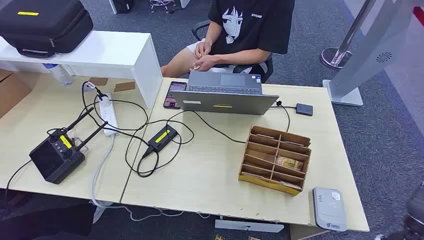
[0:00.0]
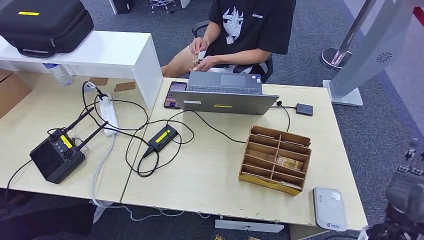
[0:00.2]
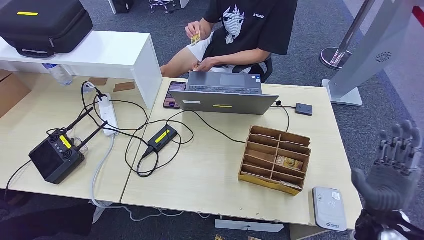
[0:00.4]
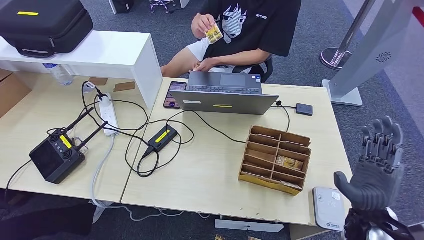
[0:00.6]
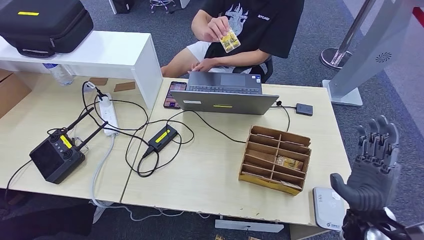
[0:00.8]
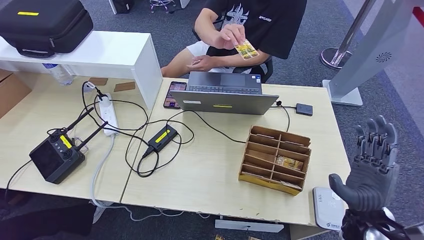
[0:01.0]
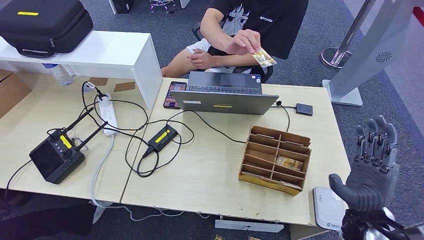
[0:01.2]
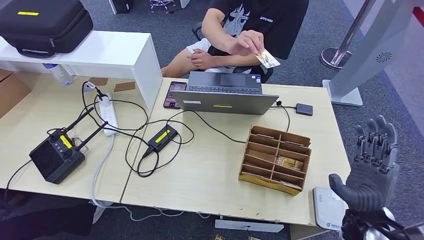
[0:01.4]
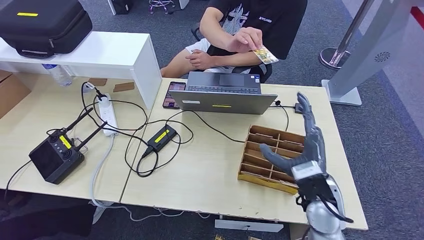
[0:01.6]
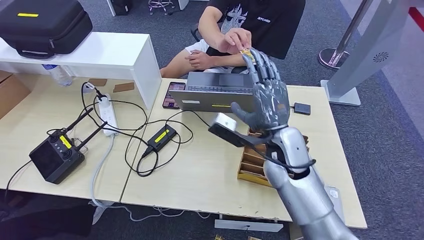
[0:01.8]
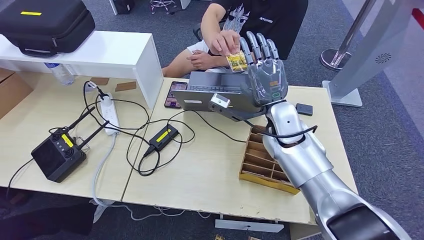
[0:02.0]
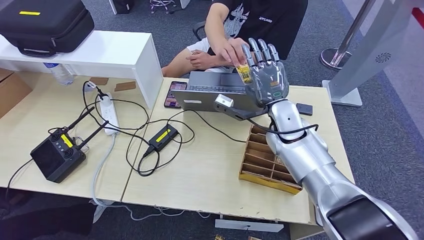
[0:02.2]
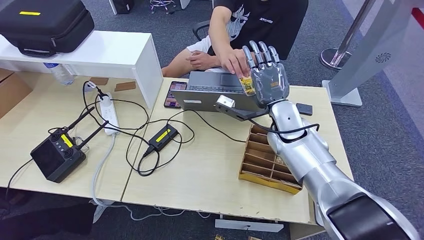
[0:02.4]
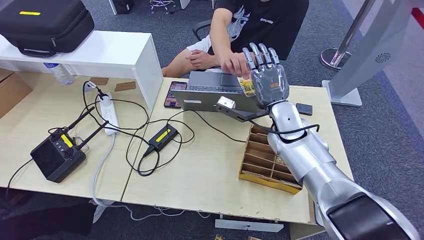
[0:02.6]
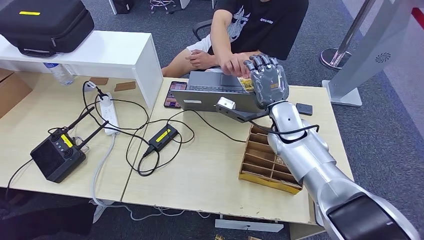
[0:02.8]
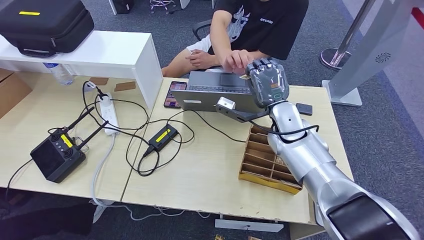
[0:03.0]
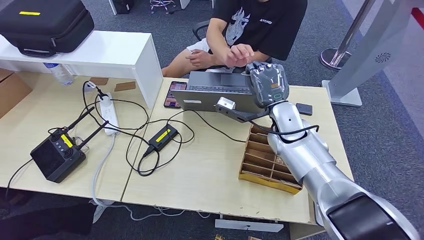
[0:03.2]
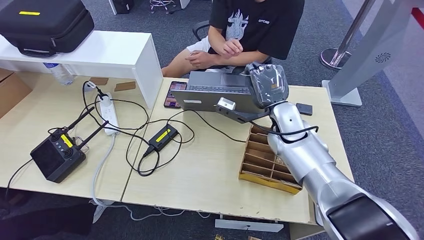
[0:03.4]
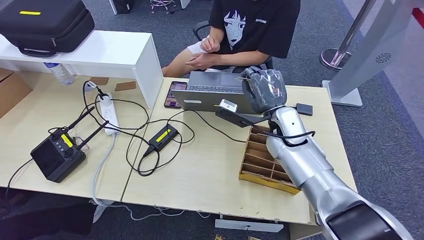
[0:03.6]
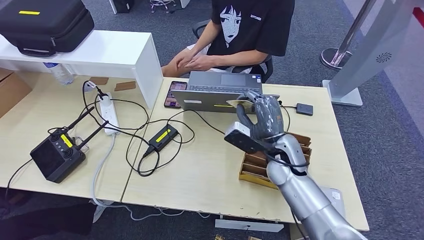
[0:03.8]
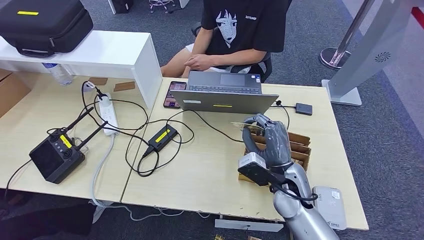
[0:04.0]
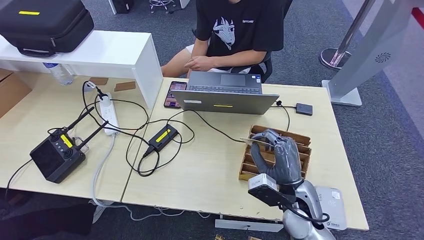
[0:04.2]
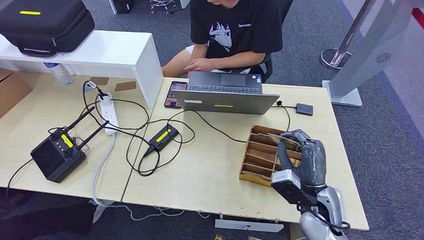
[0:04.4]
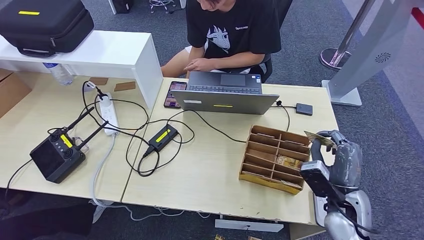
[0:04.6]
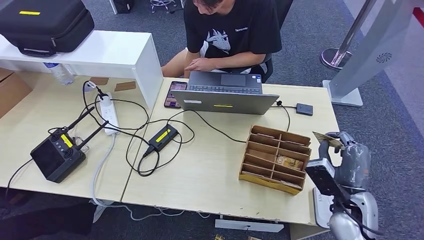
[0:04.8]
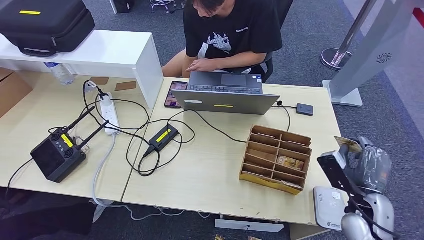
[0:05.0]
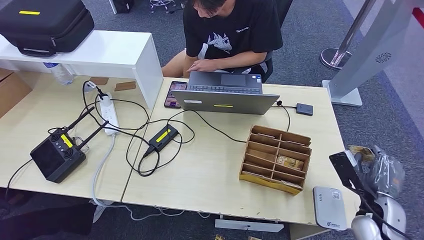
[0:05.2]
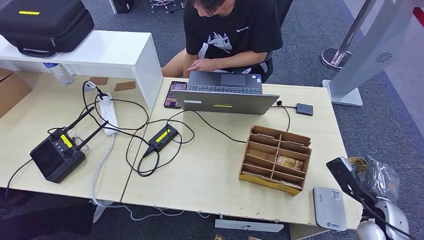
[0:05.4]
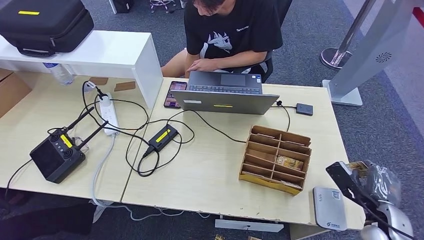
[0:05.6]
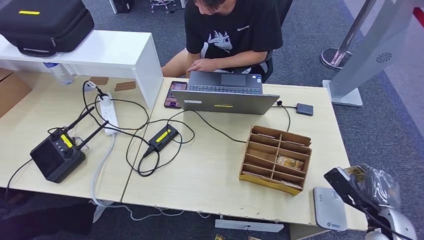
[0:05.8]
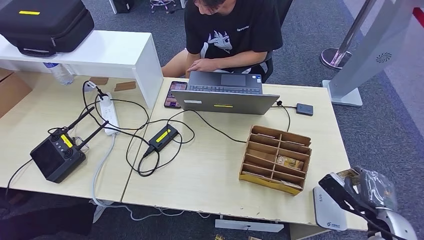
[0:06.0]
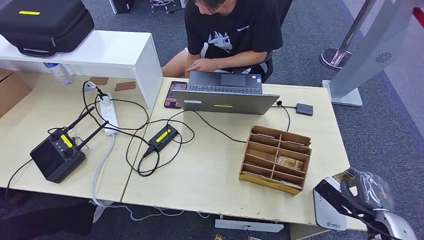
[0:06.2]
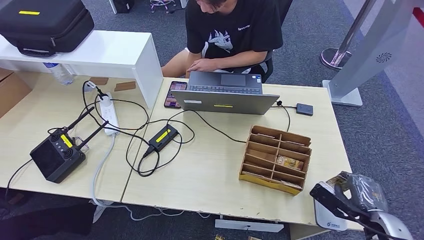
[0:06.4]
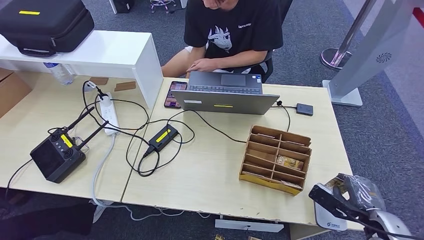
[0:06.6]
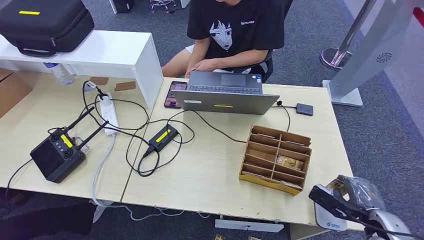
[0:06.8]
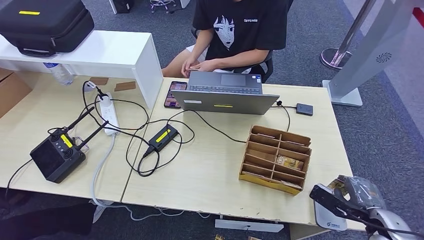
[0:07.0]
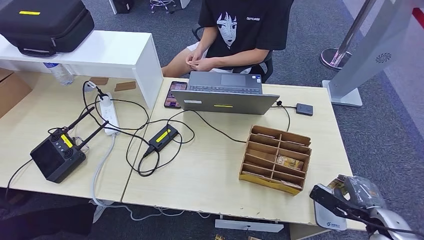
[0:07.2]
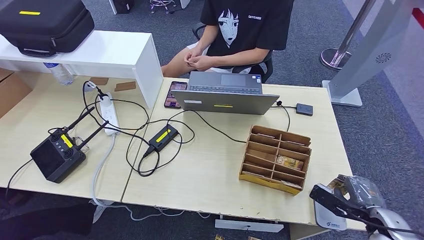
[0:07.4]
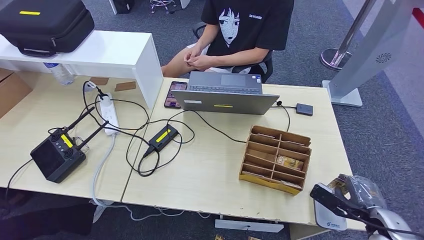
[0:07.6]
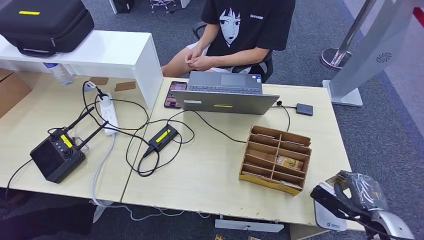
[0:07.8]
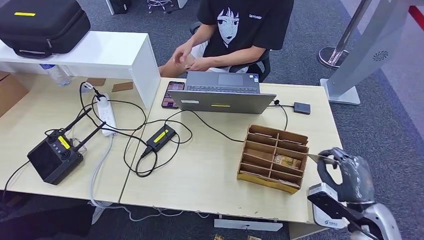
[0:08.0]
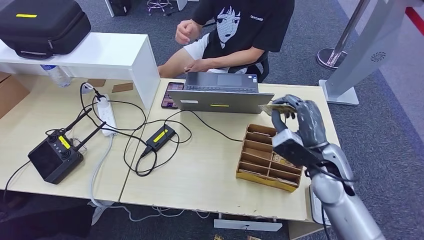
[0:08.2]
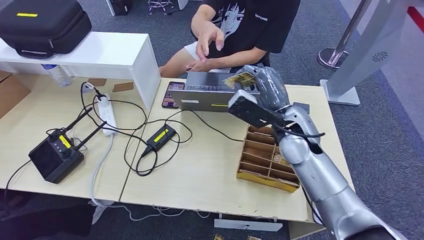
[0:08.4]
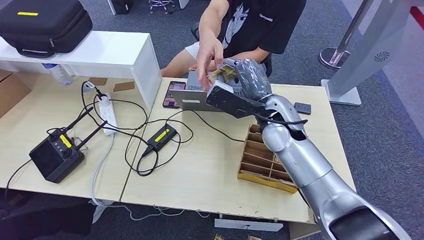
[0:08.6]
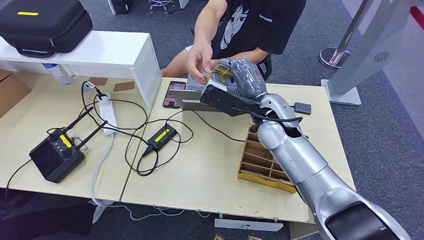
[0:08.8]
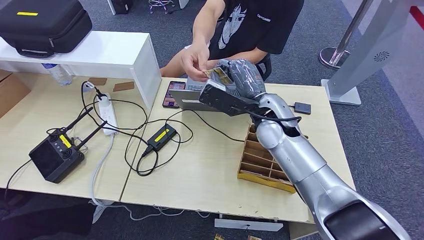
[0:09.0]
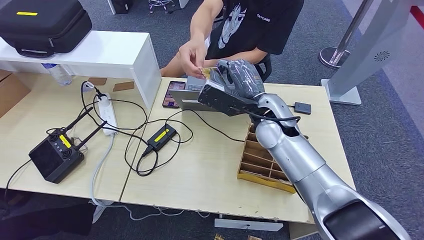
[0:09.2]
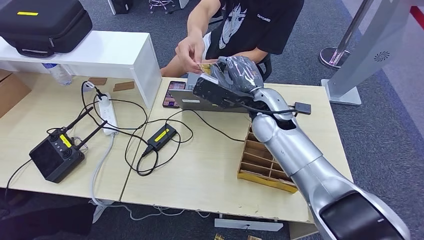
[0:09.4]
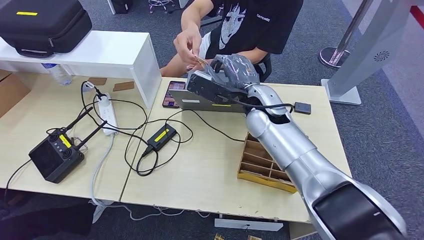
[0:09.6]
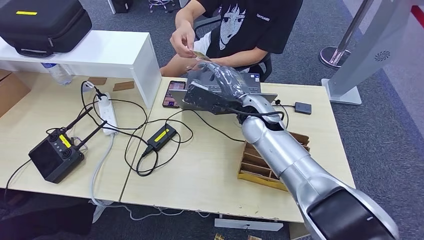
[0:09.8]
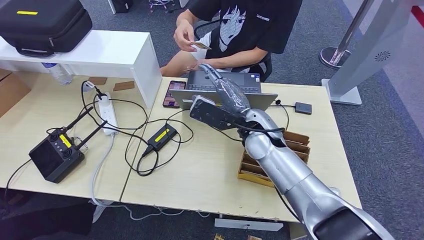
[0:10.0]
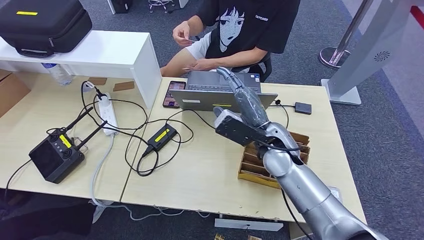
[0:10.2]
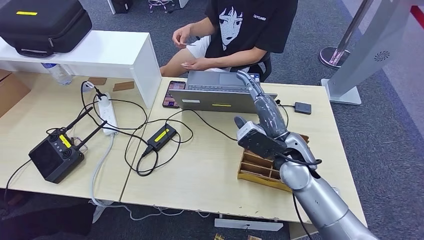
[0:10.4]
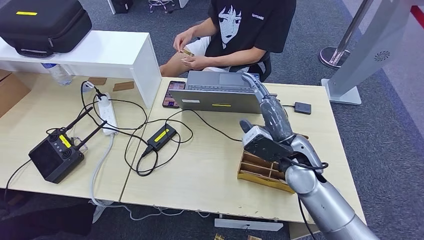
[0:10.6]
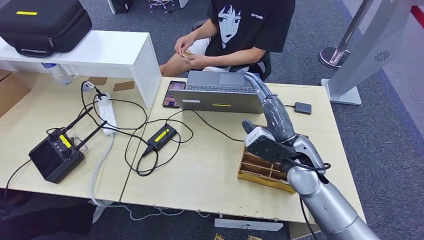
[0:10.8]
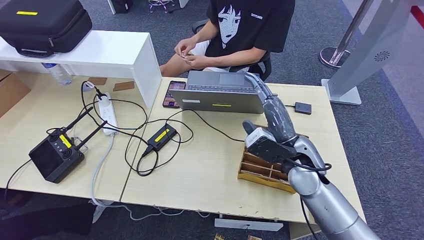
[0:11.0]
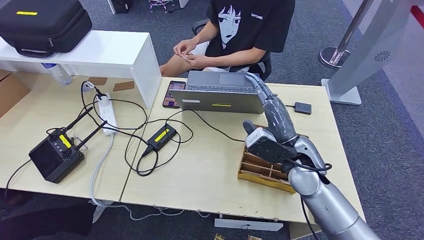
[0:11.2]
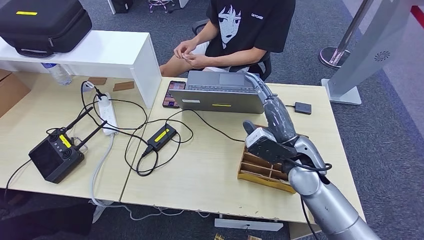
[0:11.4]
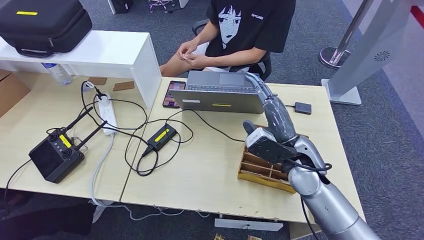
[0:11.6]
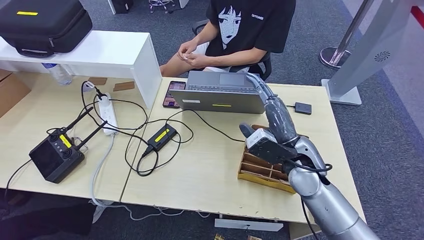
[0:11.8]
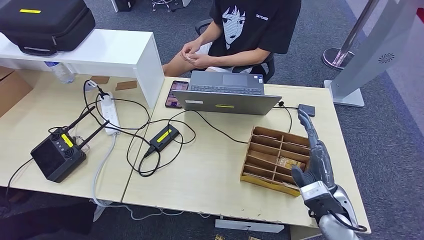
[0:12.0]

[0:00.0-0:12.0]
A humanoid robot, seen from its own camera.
Step, 0:00.0 to 0:04.0: Take the ID card from the person's hand.
Step, 0:04.2 to 0:05.6: Place the ID card on the card reader.
Step, 0:05.8 to 0:10.4: Hand the ID card to the person.
0:01.6 to 0:03.0: The right hand heads forward, to the left and upward, covering approximately 20 cm.
0:03.0 to 0:04.4: The right hand moves backward, downward and to the right, roughly 20 cm.
0:04.4 to 0:06.0: The right hand shifts approximately 15 cm to the right.
0:06.0 to 0:07.6: The hands move only a little.
0:09.0 to 0:10.4: The right hand goes roughly 10 cm downward, to the right and backward.

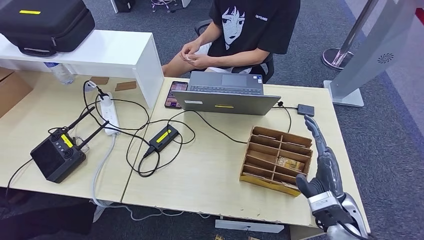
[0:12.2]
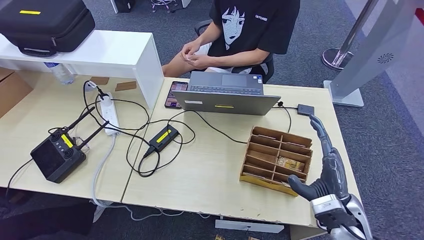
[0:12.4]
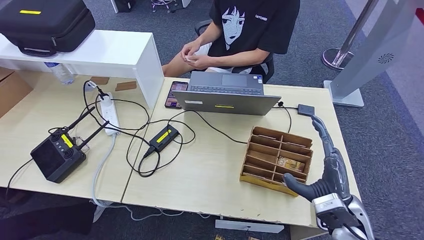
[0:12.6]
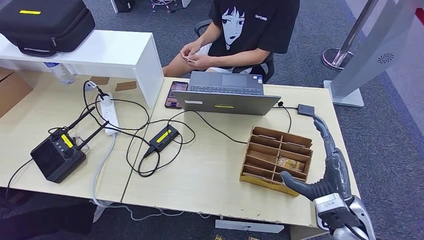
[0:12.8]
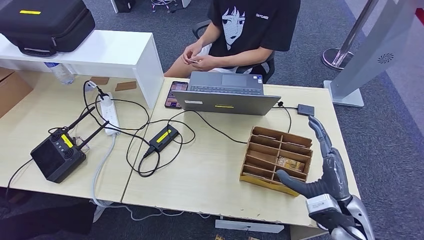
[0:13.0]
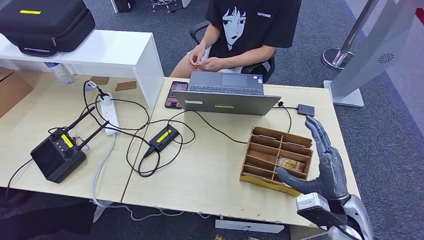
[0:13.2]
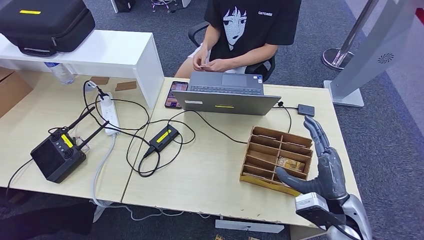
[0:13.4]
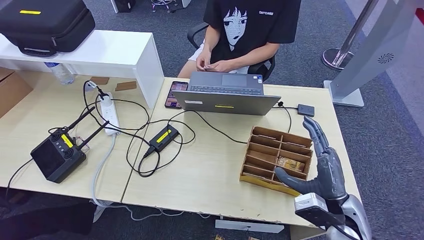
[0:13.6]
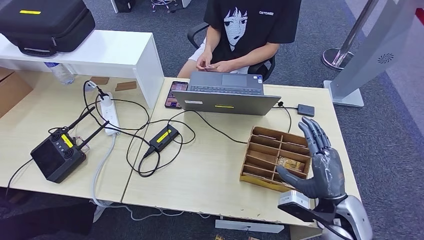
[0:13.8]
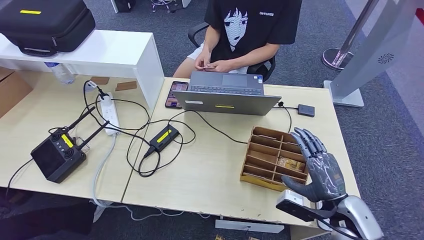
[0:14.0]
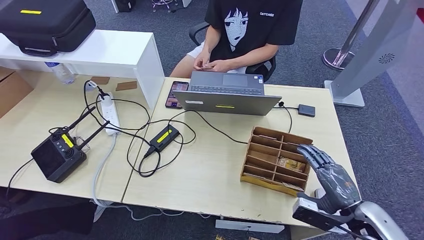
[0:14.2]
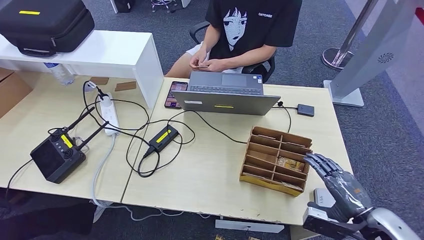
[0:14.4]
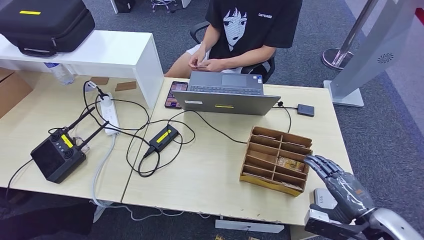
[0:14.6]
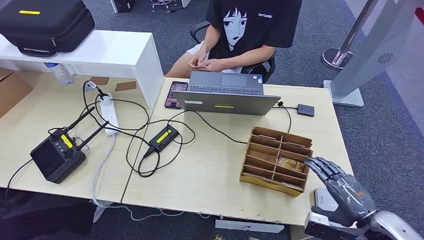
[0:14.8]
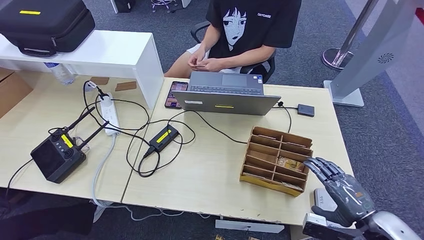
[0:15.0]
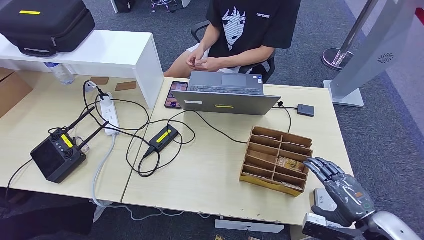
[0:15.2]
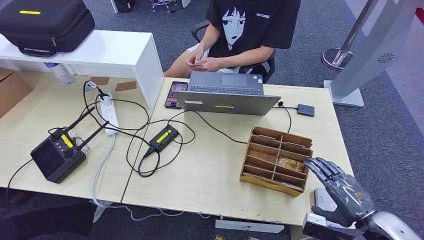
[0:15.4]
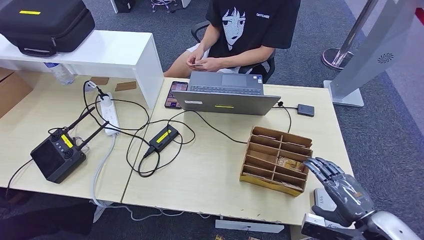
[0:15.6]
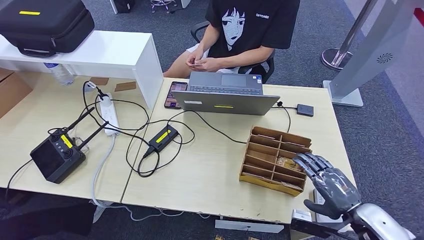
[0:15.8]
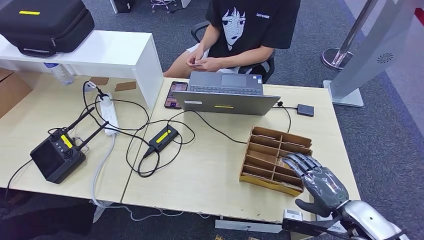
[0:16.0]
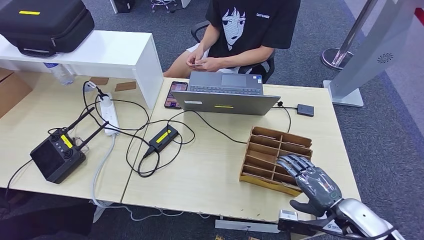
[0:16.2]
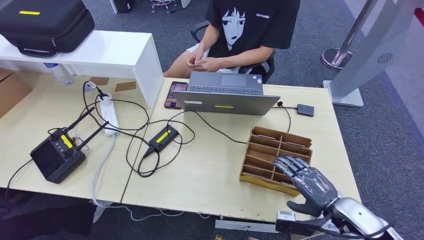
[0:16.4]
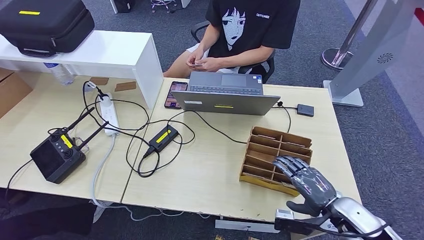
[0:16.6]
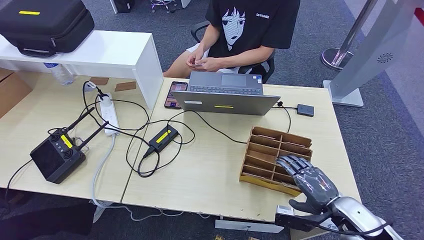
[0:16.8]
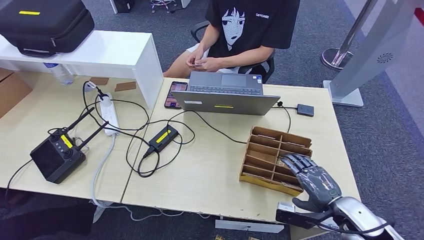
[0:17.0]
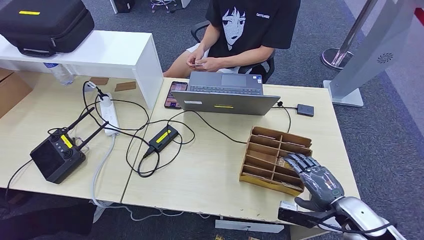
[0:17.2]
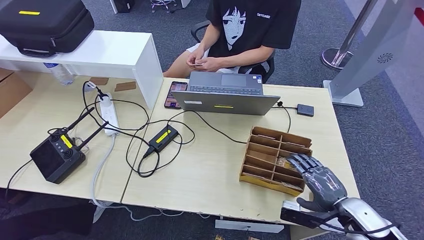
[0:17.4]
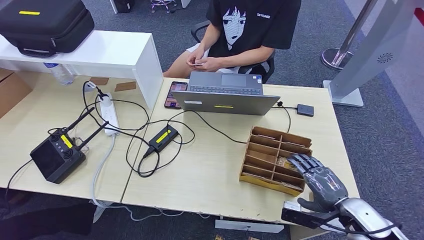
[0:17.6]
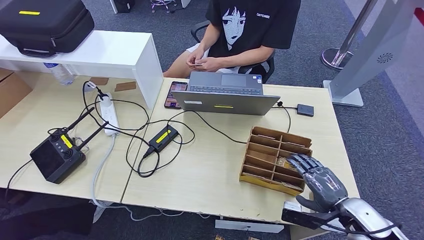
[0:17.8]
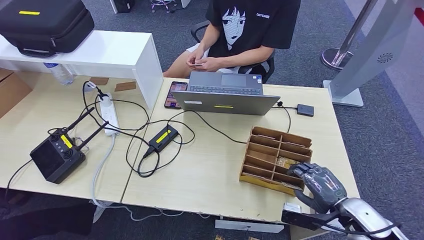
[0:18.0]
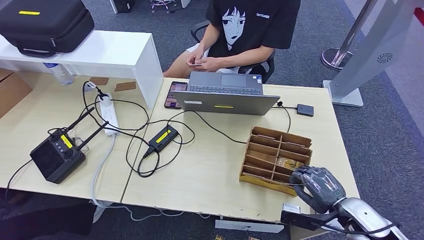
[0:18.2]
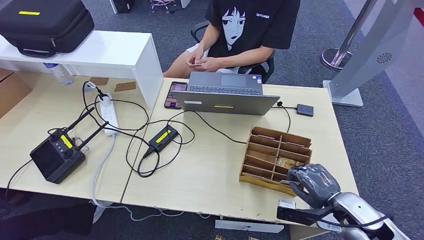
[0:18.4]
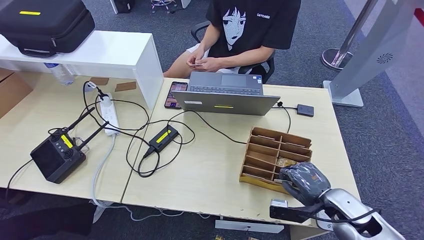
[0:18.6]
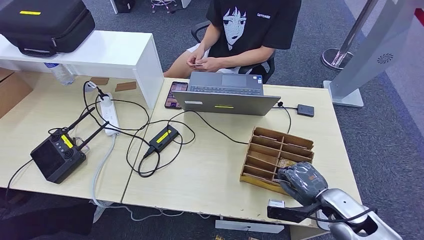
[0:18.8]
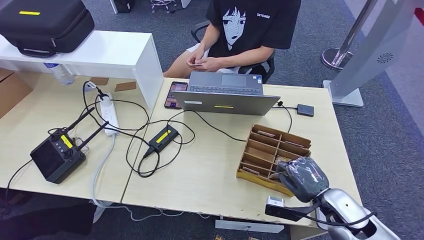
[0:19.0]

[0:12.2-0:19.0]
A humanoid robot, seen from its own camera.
0:12.2 to 0:13.6: There are only small adjustments of the hands.
0:13.6 to 0:15.0: The right hand is displaced to the right by about 10 cm.
0:15.0 to 0:16.2: The right hand moves roughly 5 cm.
0:16.2 to 0:19.0: The hands stay close to where they were, moving slightly.
